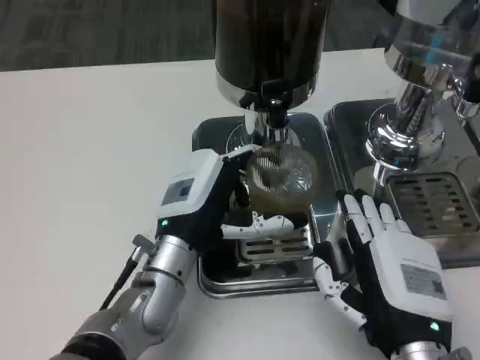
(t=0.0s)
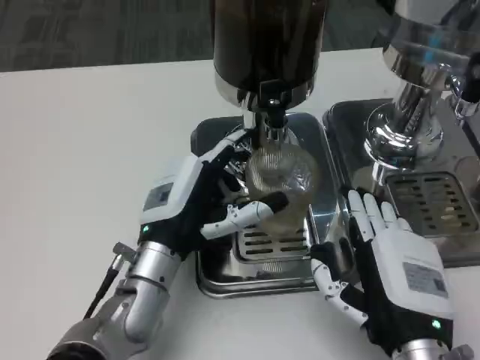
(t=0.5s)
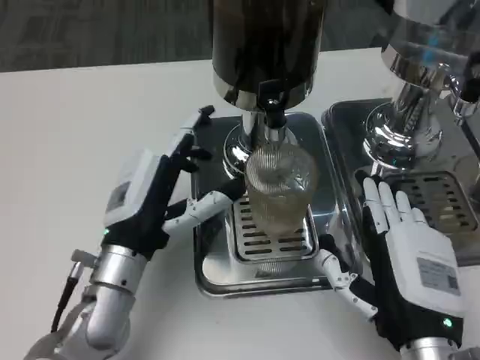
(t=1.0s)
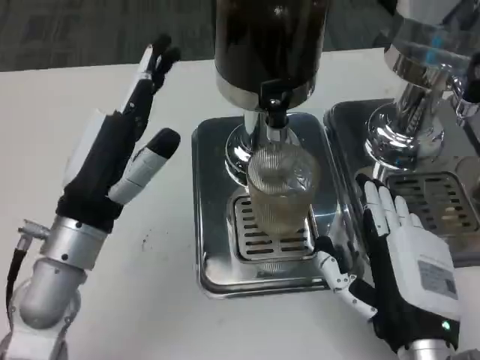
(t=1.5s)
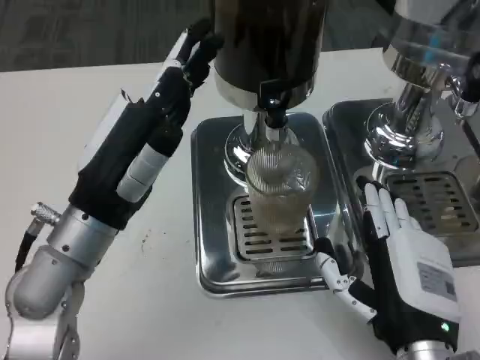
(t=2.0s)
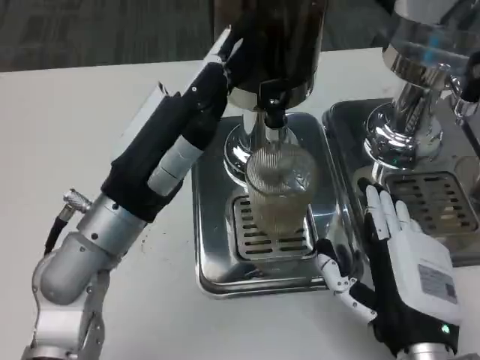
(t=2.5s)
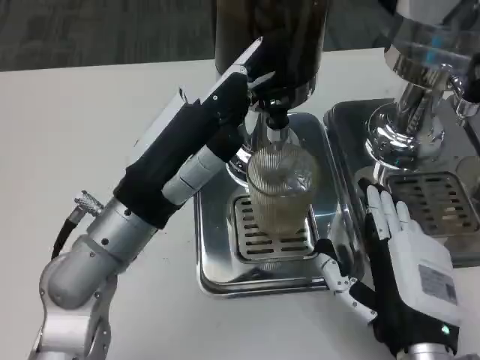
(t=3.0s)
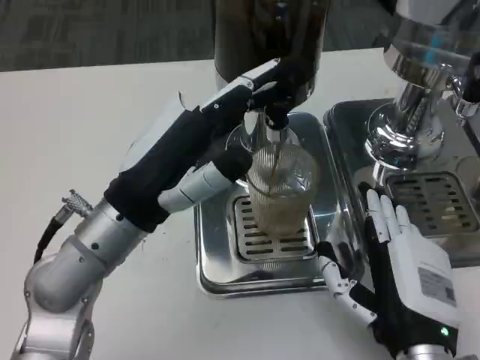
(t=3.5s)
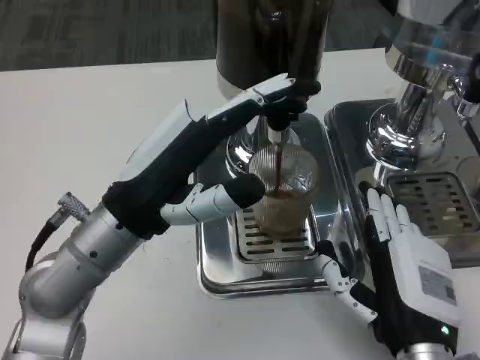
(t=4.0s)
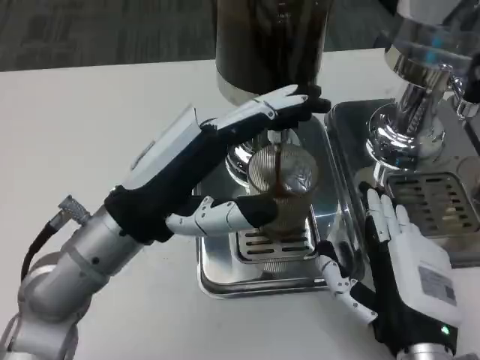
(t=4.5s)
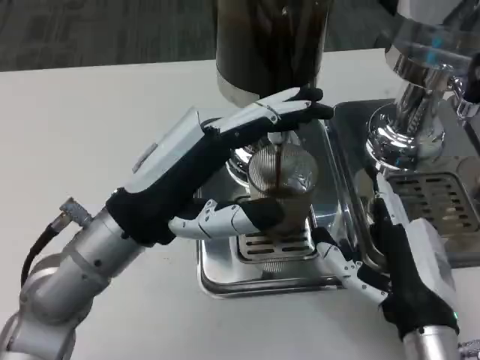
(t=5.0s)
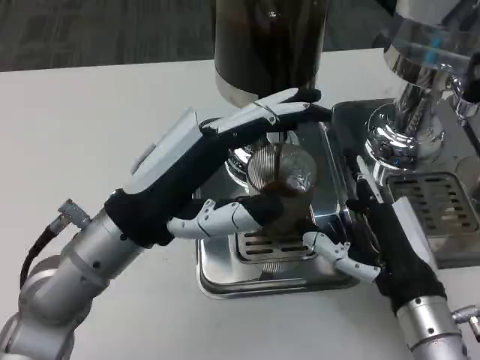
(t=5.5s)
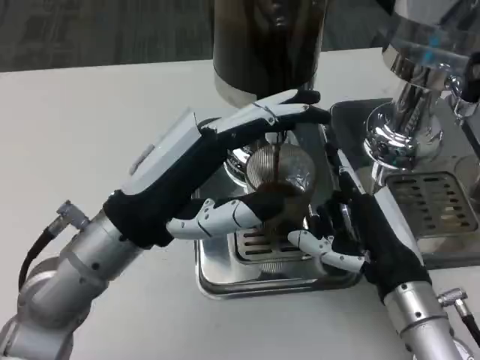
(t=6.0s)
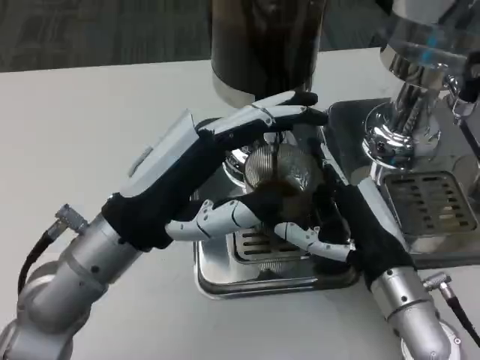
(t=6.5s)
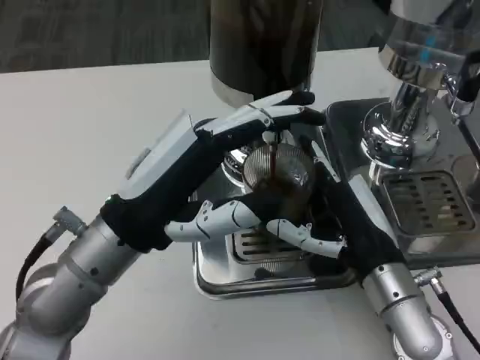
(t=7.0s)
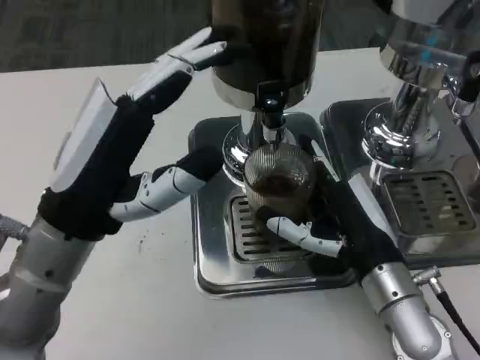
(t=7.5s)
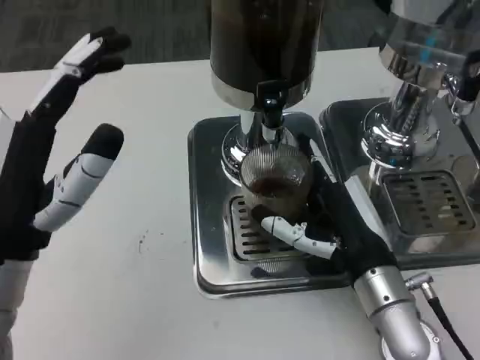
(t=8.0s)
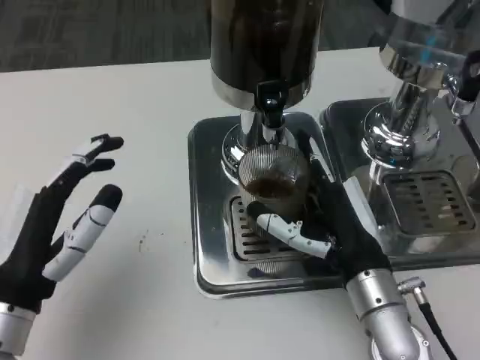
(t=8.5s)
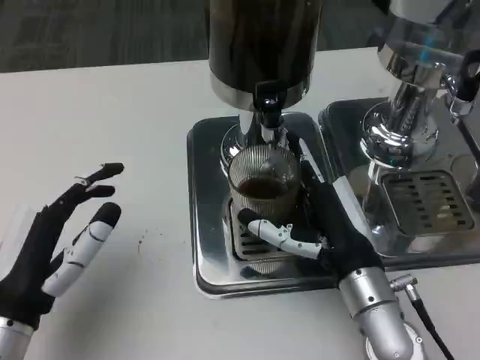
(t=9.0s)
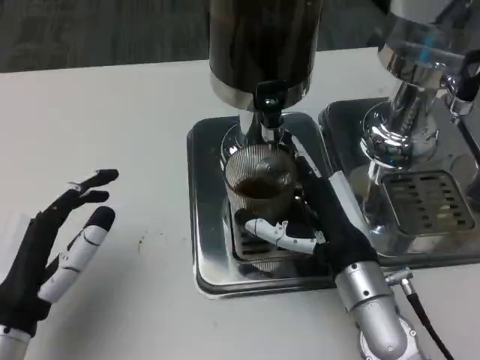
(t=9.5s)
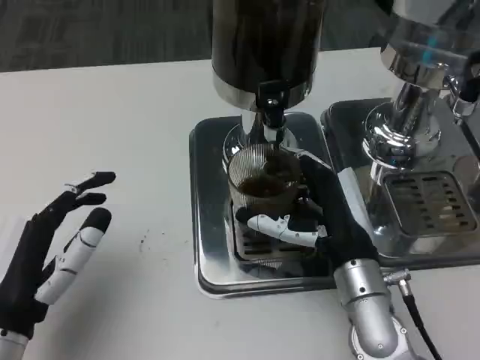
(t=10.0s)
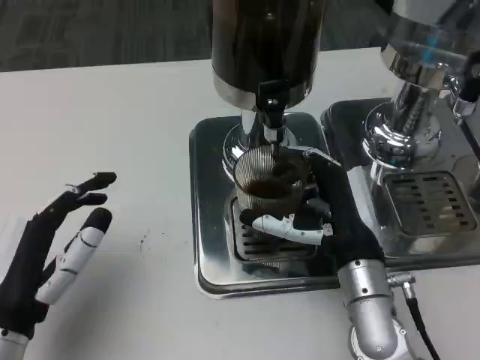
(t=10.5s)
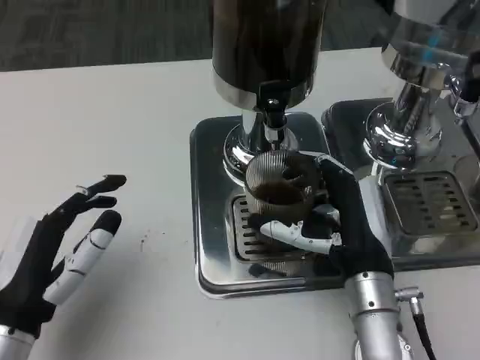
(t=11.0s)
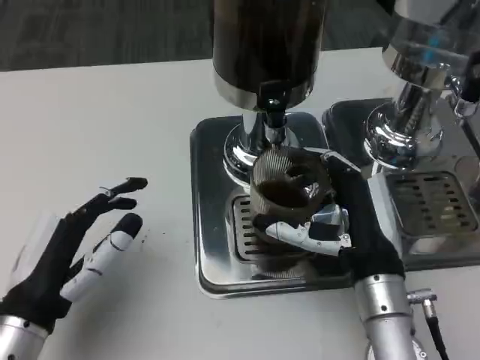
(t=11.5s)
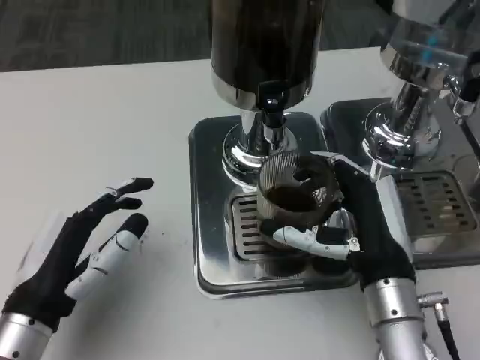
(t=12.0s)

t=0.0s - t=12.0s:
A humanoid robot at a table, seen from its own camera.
Task of the whole recording: Grasp the cup under the faucet to collect the drink, then remove the cup.
t=0.0s - t=2.0s: The left hand goes about 10 cm upward and to the left.
t=4.0s - t=6.0s: The right hand heads forward, covering about 5 cm.
t=6.0s - t=8.0s: The left hand travels to the left by about 5 cm.
t=8.0s - t=10.0s: The left hand is displaced downward by about 5 cm.

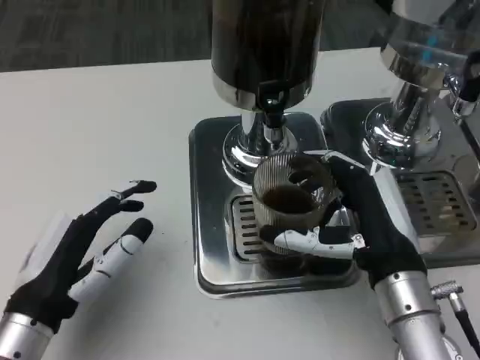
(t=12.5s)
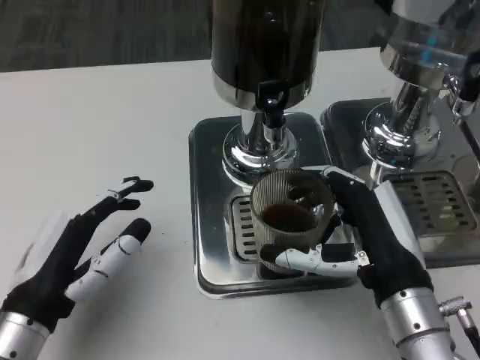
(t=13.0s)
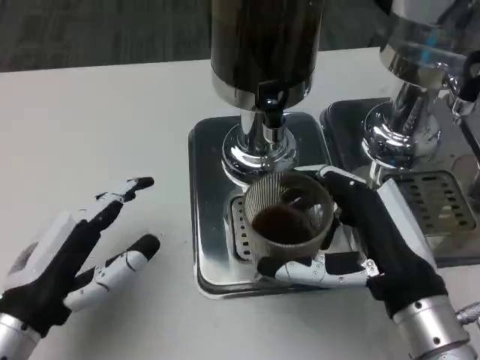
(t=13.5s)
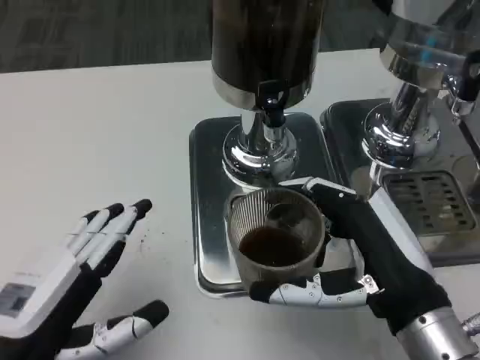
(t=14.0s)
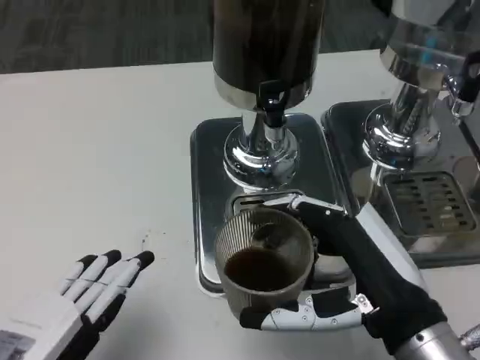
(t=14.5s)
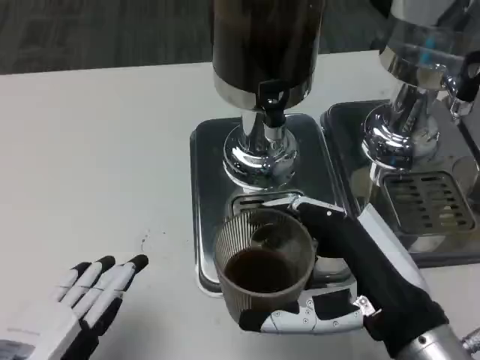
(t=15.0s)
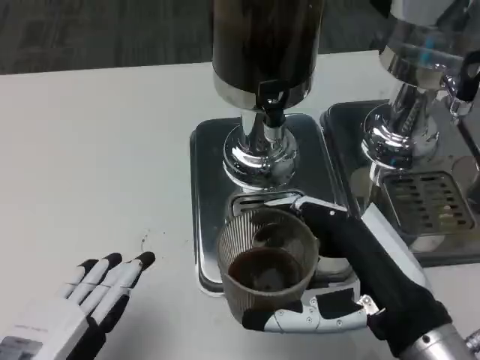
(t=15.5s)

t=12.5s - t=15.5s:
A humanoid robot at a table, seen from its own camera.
Task of the whole recording: Grasp the cup under the faucet to collect the drink, then remove the cup.
t=12.5s - t=14.0s: The two hands go approximately 5 cm backward.

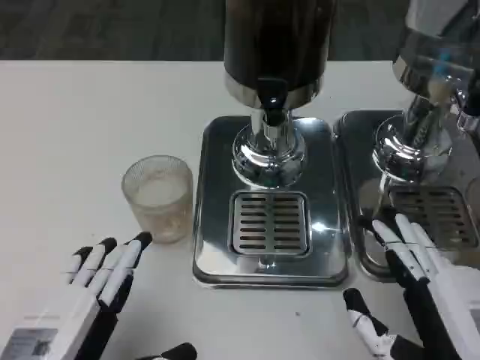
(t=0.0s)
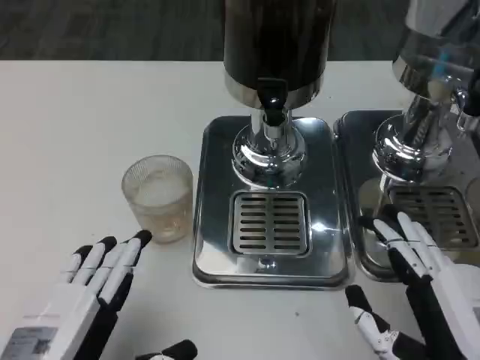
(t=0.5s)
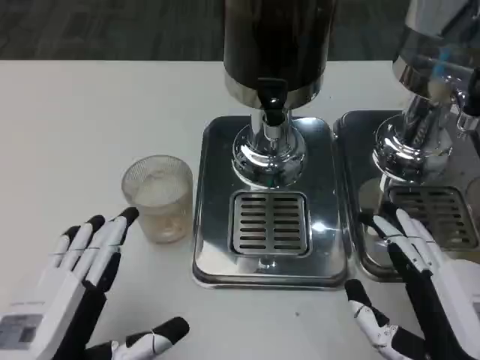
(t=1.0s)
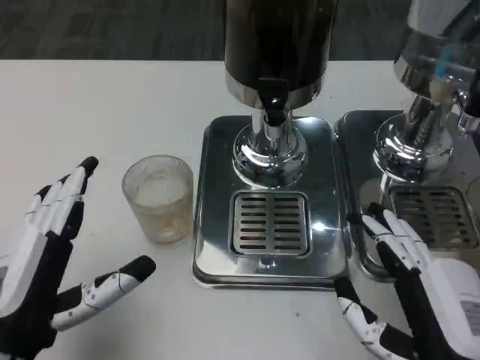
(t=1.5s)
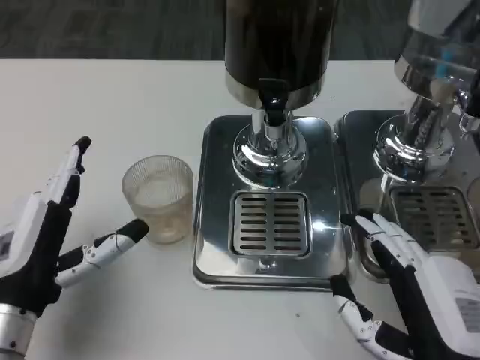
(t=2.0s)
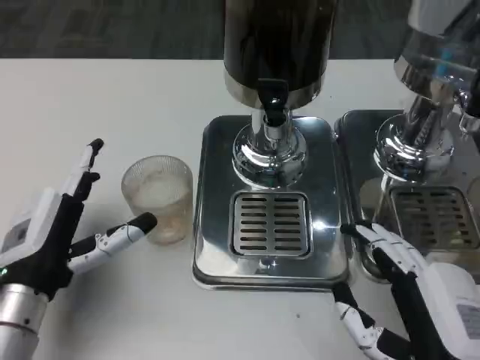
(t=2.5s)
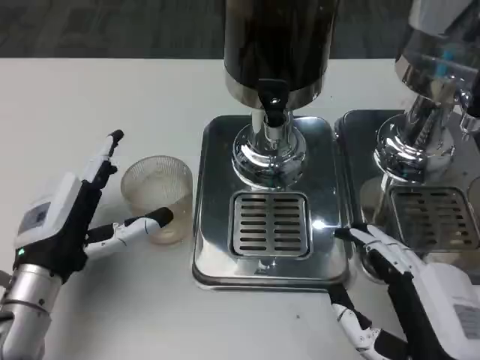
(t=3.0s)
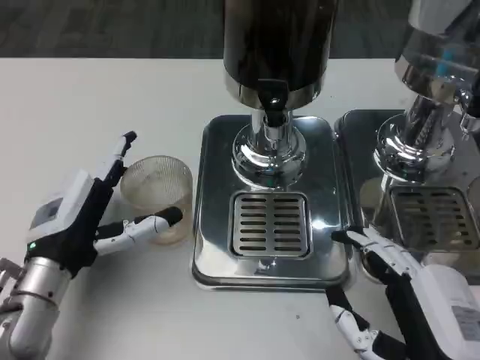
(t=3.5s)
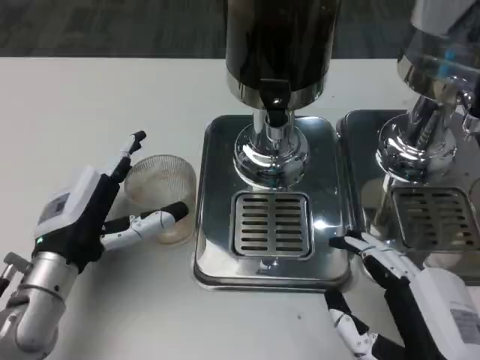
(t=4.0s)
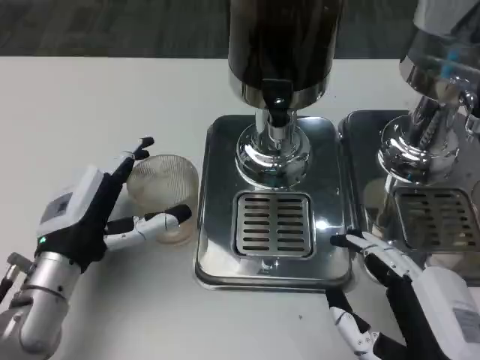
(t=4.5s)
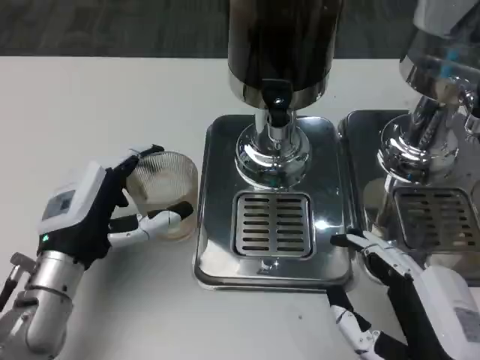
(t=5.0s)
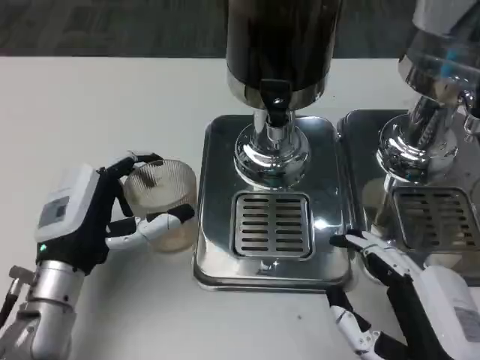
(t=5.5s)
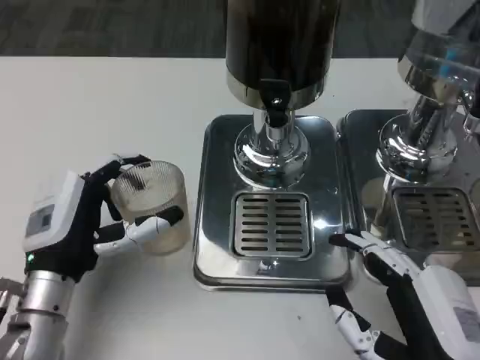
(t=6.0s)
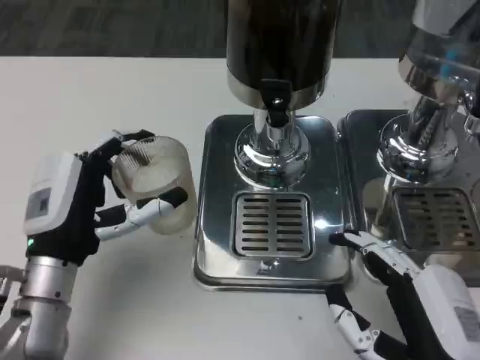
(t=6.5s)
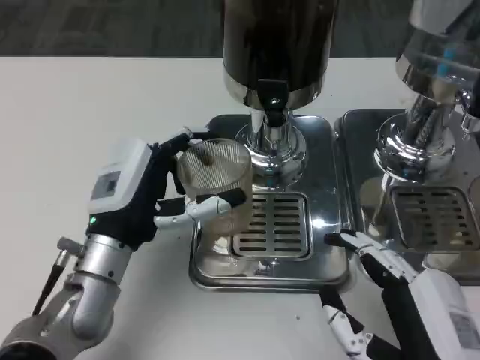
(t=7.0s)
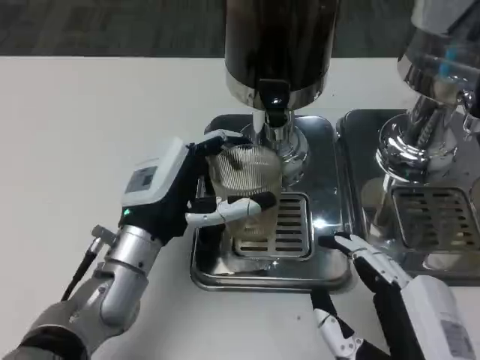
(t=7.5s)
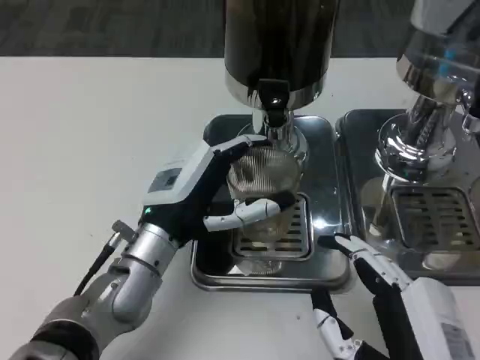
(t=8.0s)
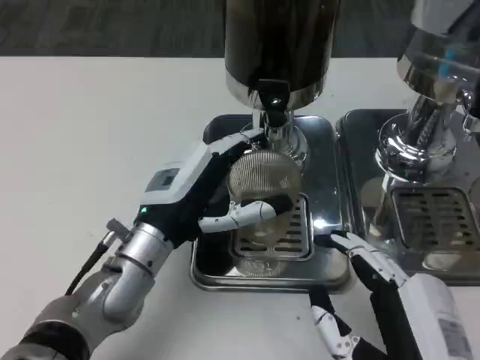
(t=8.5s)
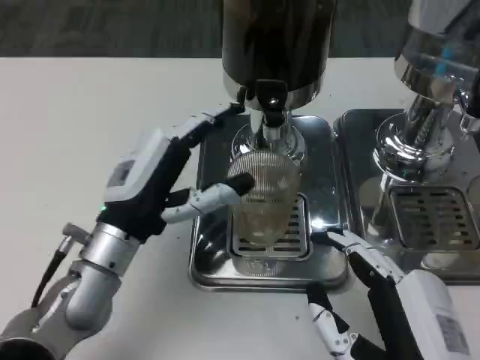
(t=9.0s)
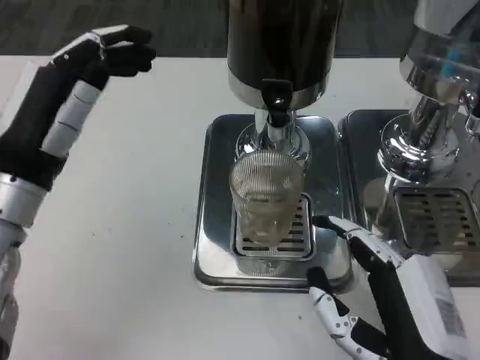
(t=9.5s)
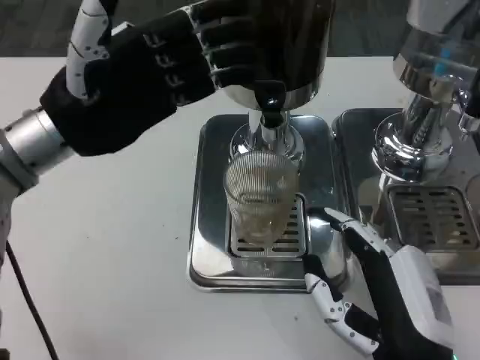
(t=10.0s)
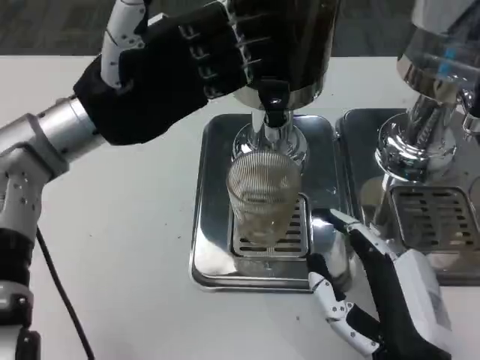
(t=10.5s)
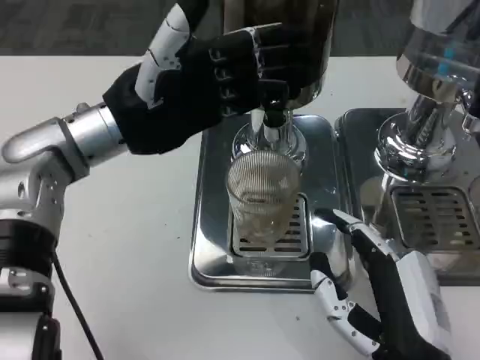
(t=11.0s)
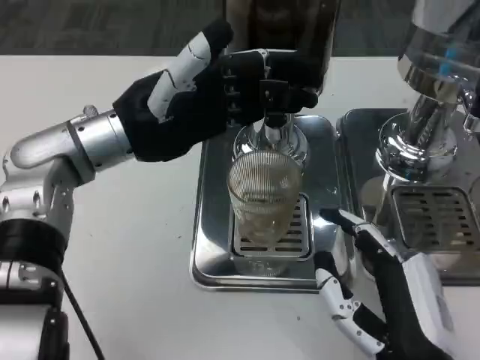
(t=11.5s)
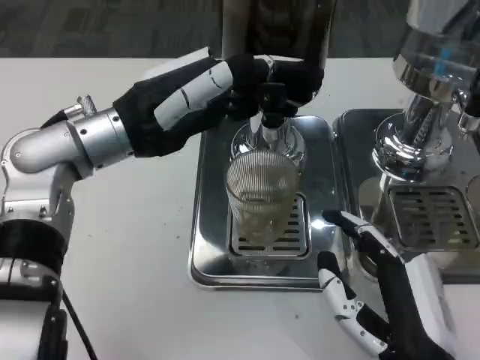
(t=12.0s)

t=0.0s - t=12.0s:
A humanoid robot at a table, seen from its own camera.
Task of the whole recording: Grasp the cup under the faucet to collect the drink, then remove the cup.
t=0.0s - t=2.0s: The left hand moves forward, some 10 cm.
t=2.0s - t=4.0s: The left hand travels forward by roughly 5 cm.
t=4.0s - t=6.0s: The hands move only a little.
t=6.0s - t=8.0s: The left hand travels to the right by roughly 10 cm.
t=8.0s - t=10.0s: The left hand goes about 15 cm upward and to the left.
